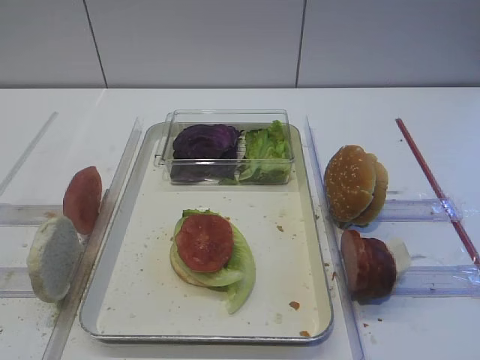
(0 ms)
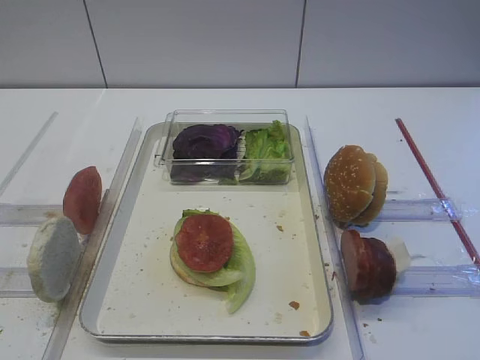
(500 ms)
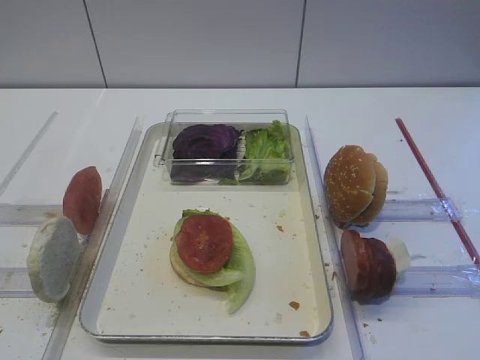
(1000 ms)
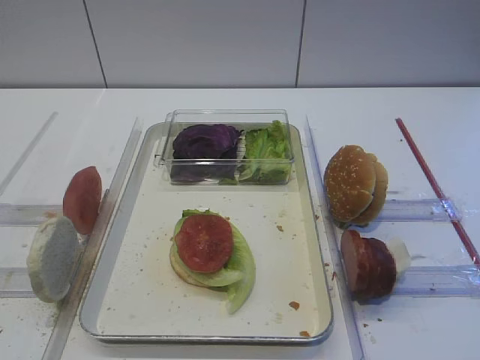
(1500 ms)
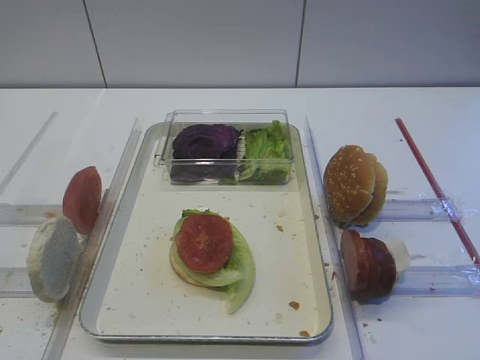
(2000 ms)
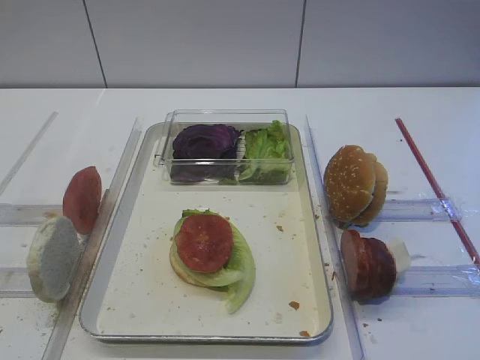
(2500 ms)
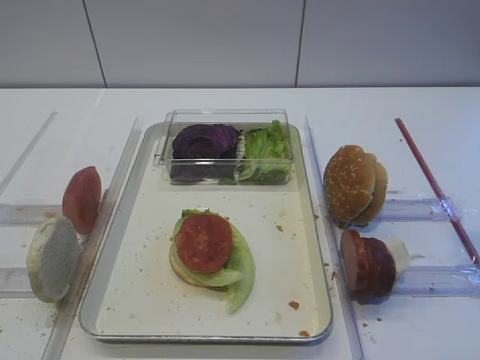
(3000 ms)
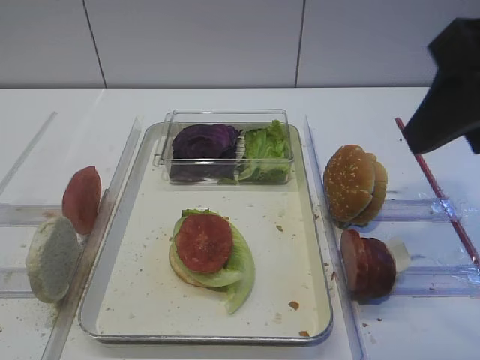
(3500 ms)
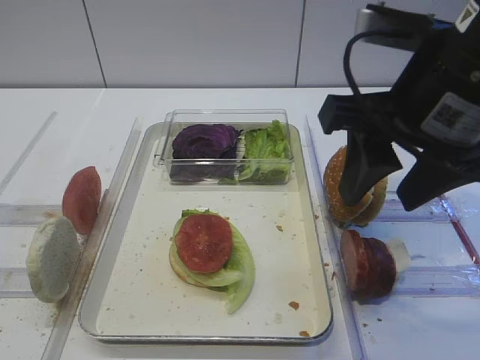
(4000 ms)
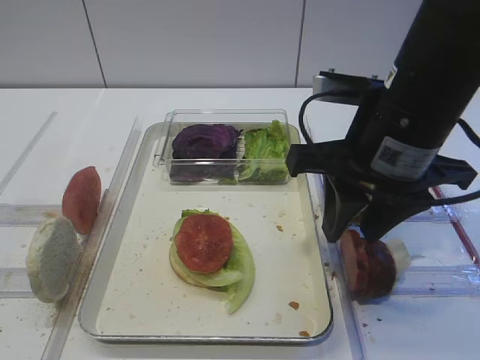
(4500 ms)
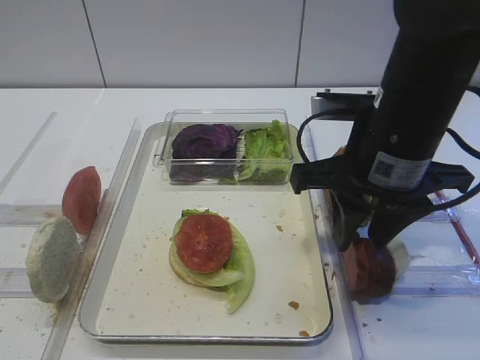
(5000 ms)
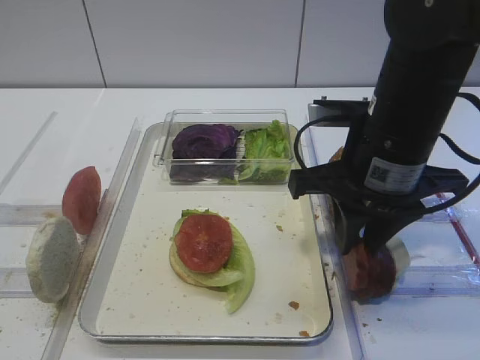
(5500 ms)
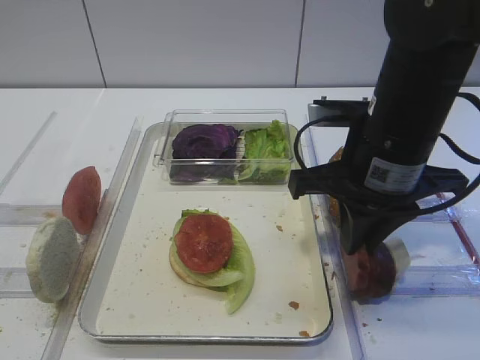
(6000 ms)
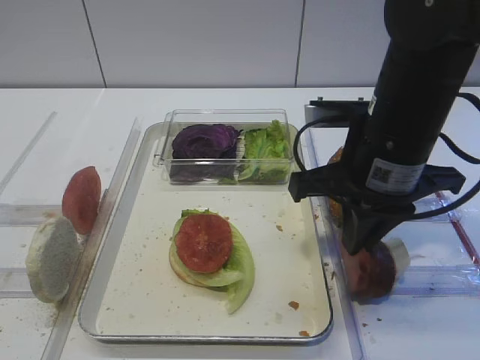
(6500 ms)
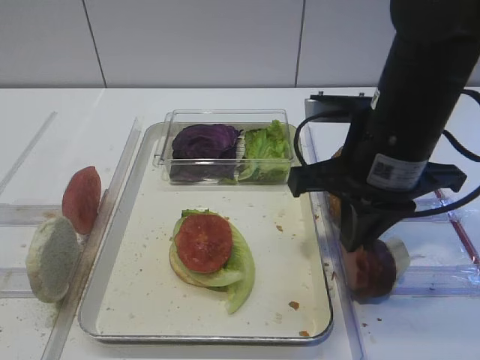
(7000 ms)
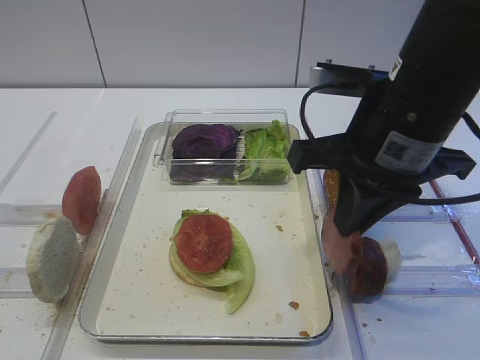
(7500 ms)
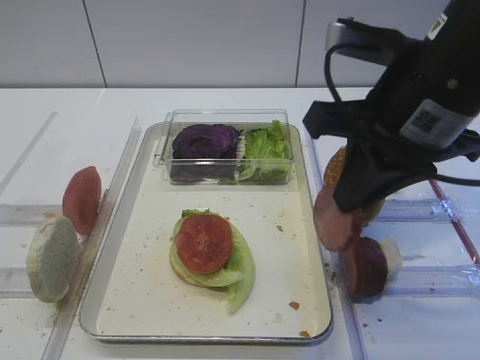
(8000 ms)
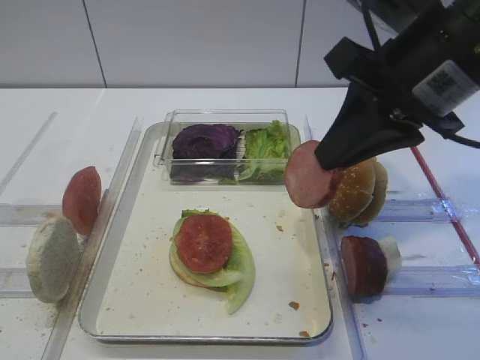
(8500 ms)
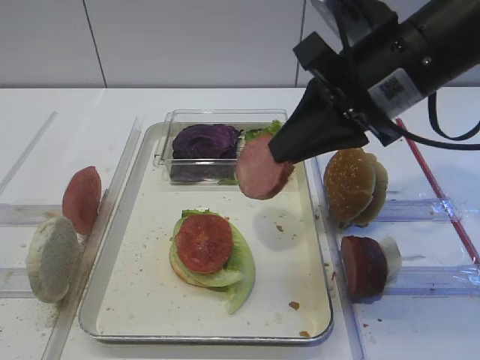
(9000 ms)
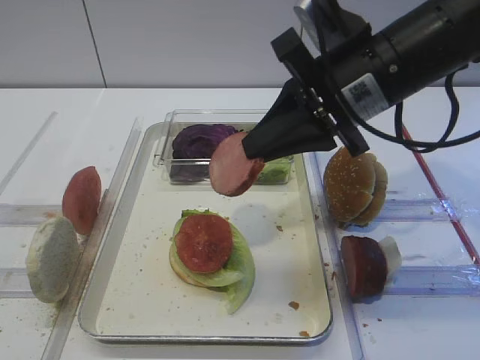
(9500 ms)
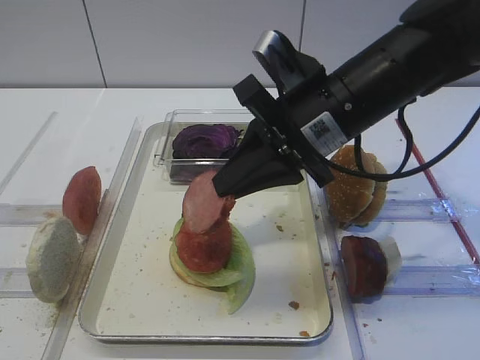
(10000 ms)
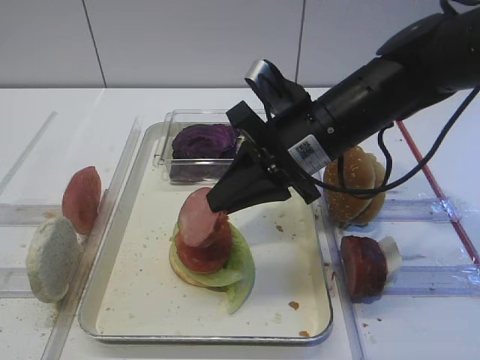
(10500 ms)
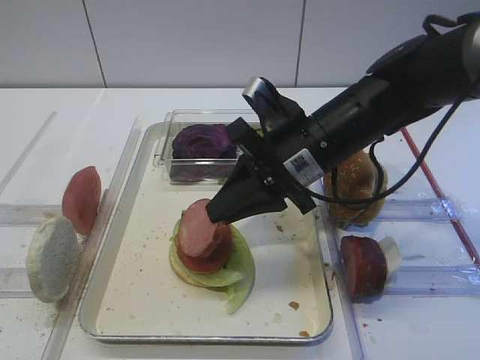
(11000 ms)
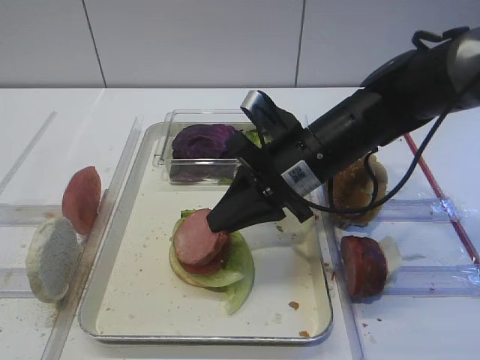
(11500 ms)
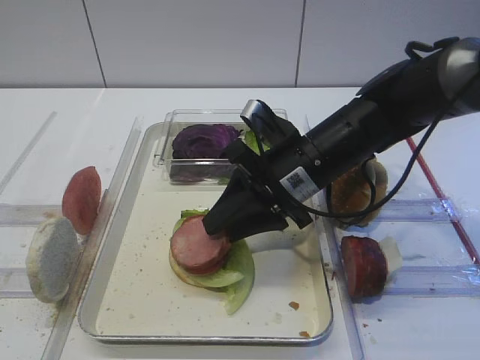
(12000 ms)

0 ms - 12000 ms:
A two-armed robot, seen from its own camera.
Step, 0 ms - 8000 ms: Pick up the cutlet with the right gripper.
2000 ms - 4000 ms: The right gripper moves forward and to the left, about 25 cm.
4000 ms - 6000 ms: The right gripper travels downward by some 10 cm, and closes.
6000 ms - 8000 ms: The right gripper heads upward, covering some 5 cm.
8000 ms - 10000 ms: The right gripper travels forward by some 5 cm.
10000 ms - 12000 ms: The right gripper travels downward by about 10 cm, and opens up.

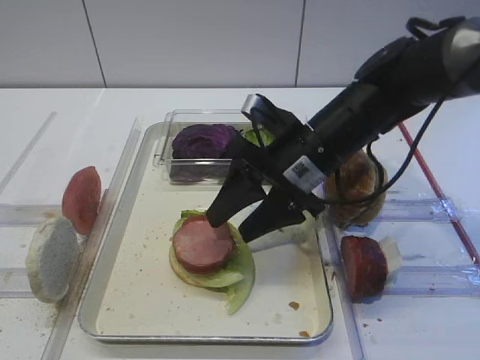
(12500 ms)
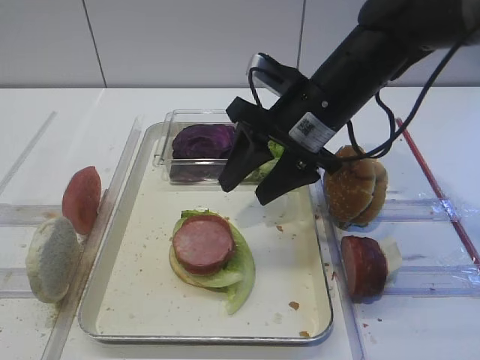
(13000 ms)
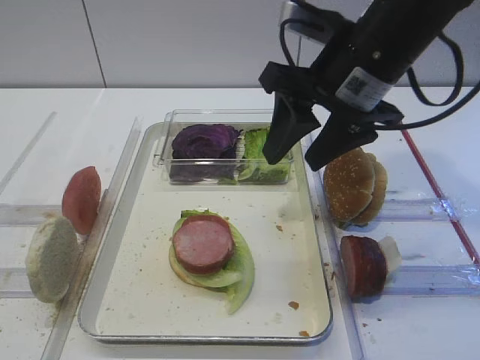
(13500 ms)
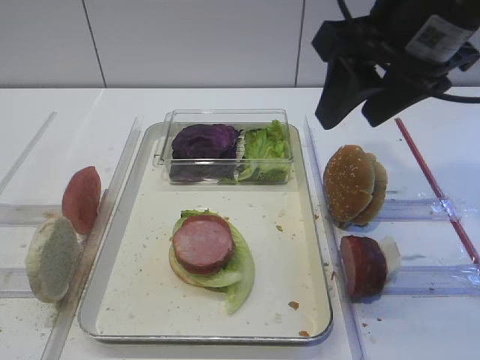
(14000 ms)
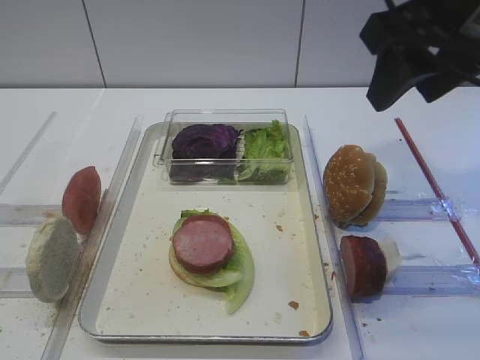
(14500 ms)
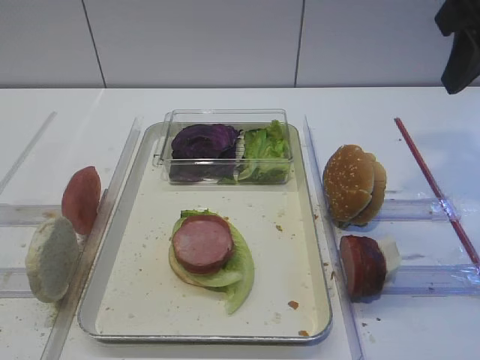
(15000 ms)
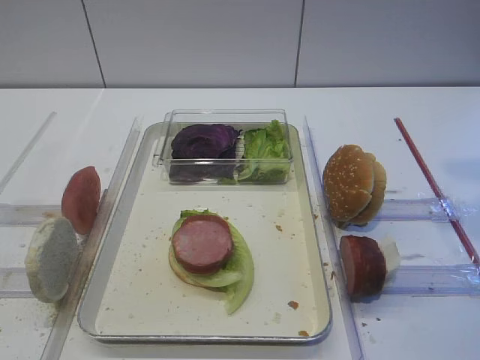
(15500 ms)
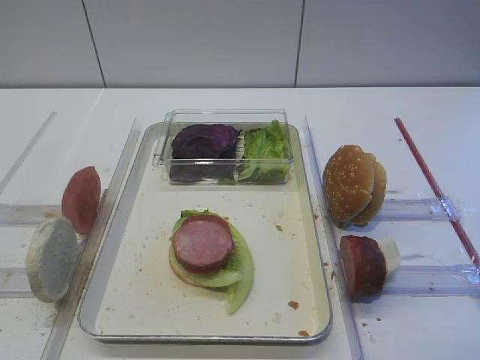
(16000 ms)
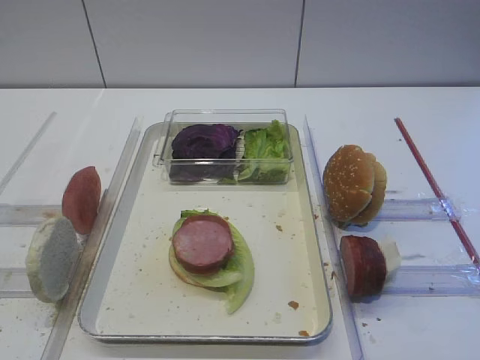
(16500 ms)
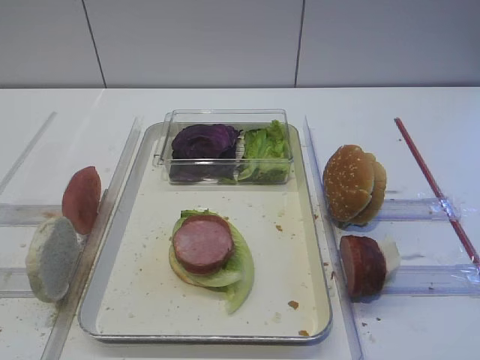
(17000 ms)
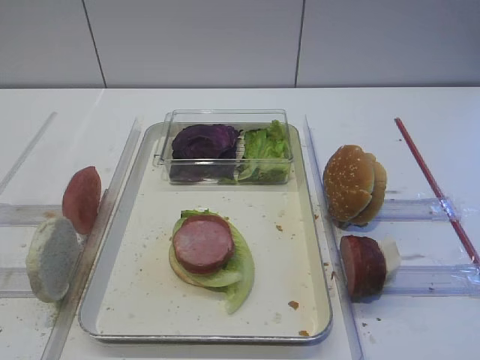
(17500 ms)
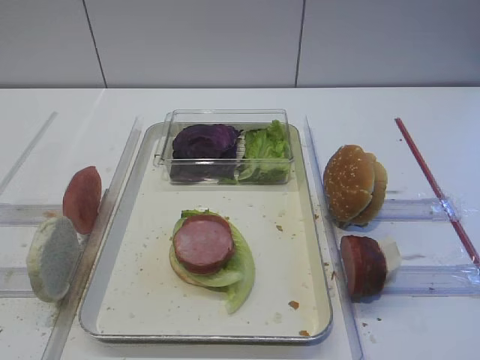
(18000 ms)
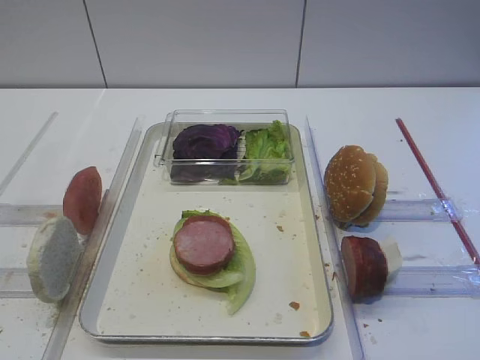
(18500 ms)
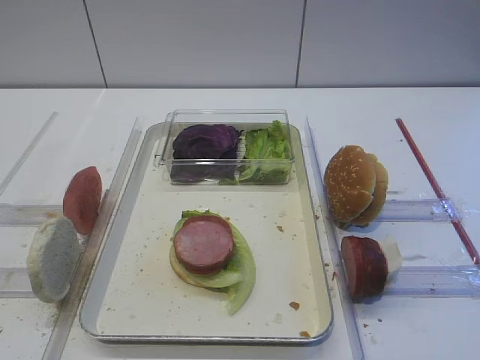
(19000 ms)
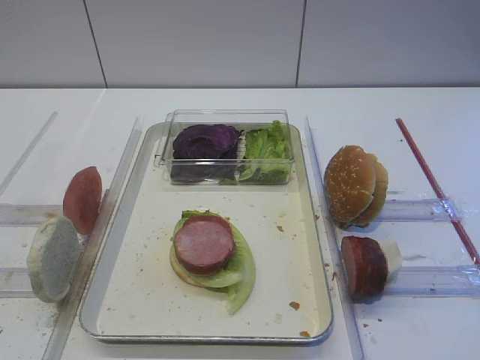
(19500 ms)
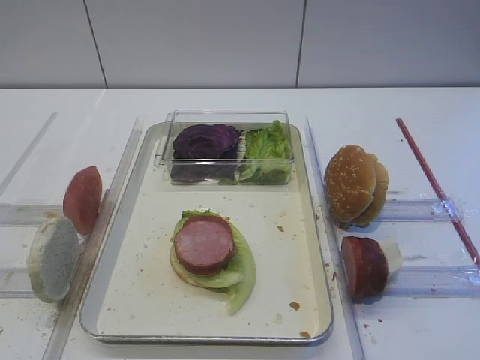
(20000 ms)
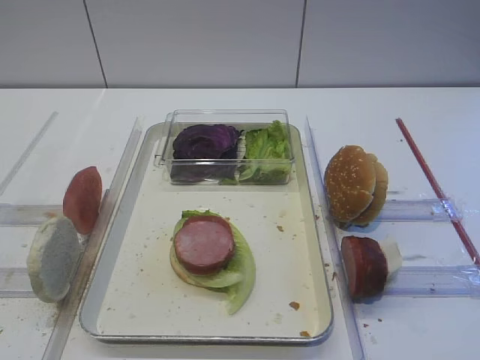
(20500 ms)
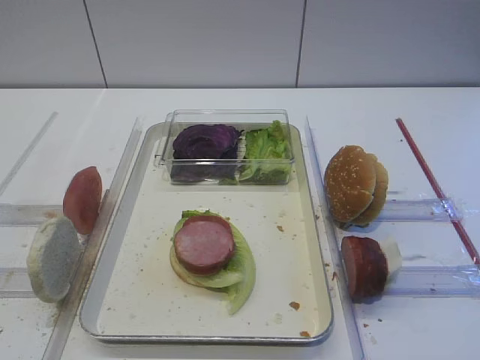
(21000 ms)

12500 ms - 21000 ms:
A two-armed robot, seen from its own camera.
12500 ms - 14500 ms: The right gripper travels upward and to the right by approximately 20 cm.
14500 ms - 16500 ms: The right gripper goes some 20 cm backward, downward and to the right.
19000 ms - 21000 ms: Both grippers stay about where they are.

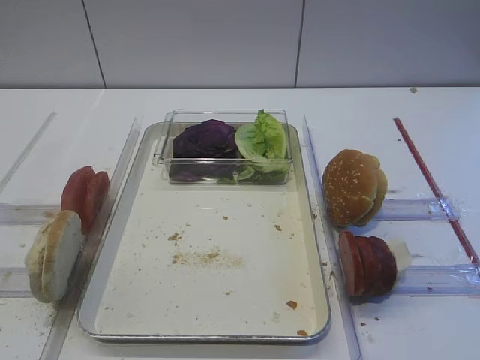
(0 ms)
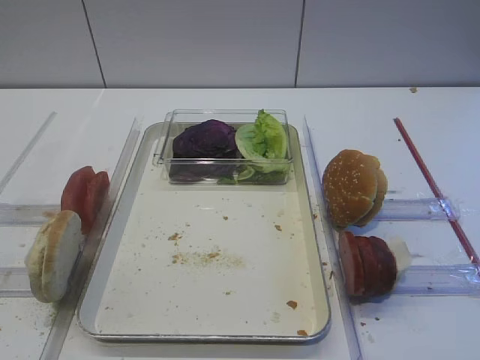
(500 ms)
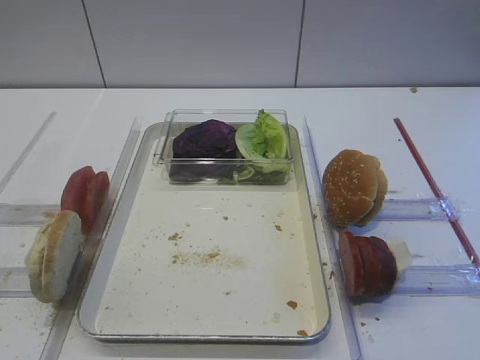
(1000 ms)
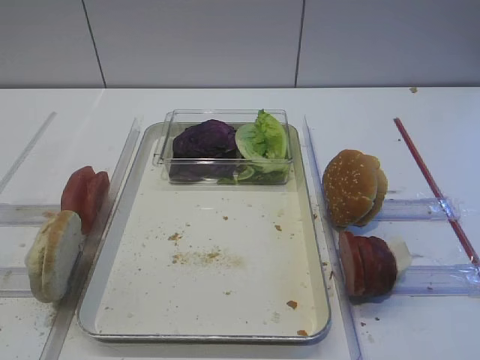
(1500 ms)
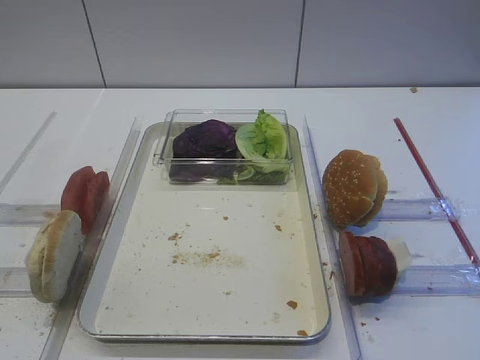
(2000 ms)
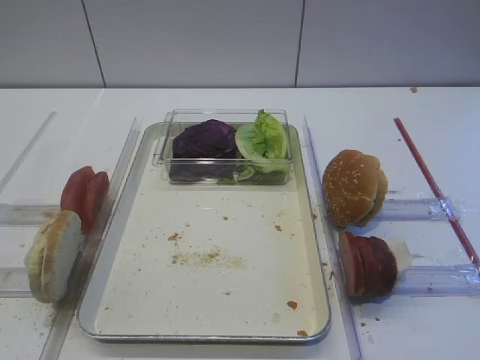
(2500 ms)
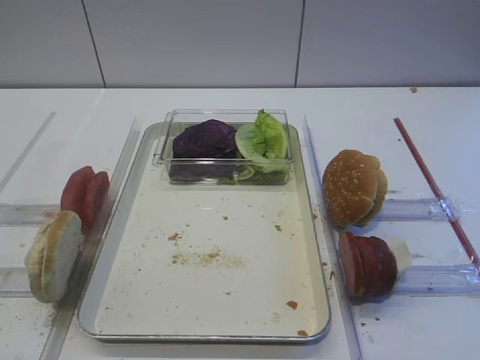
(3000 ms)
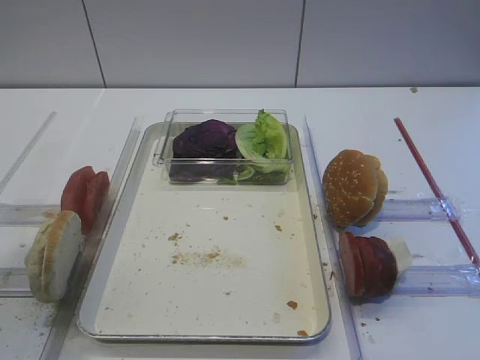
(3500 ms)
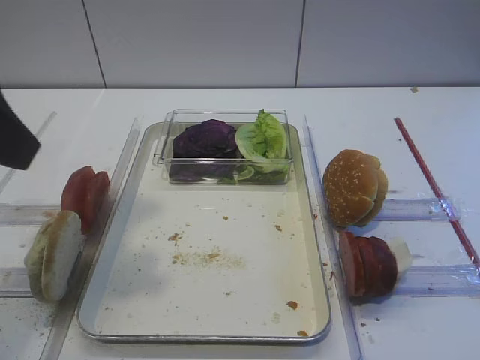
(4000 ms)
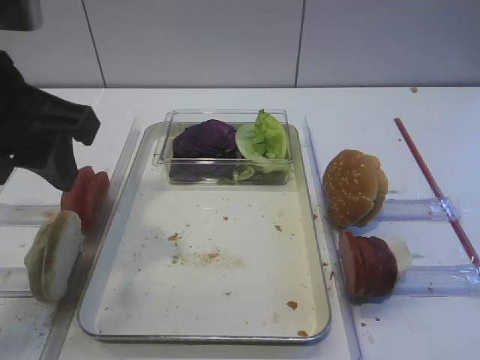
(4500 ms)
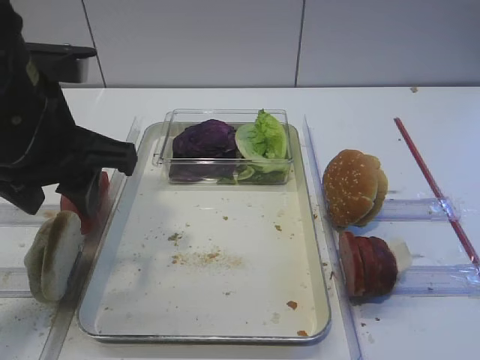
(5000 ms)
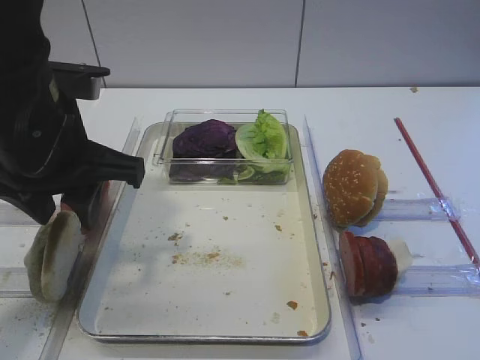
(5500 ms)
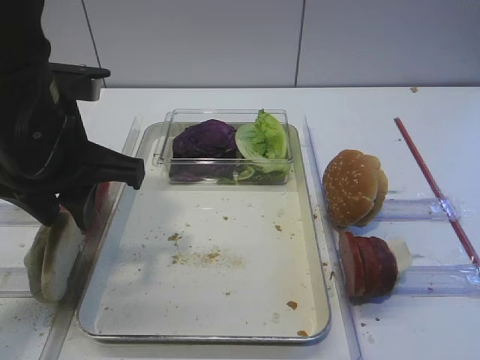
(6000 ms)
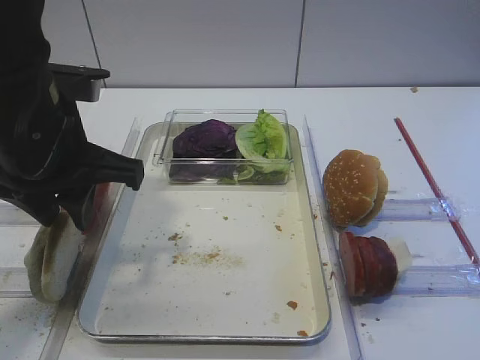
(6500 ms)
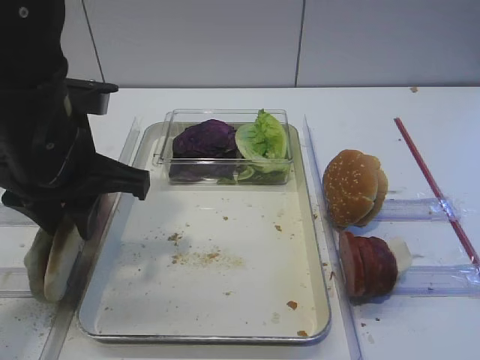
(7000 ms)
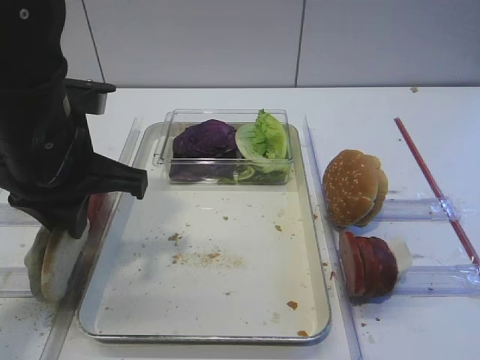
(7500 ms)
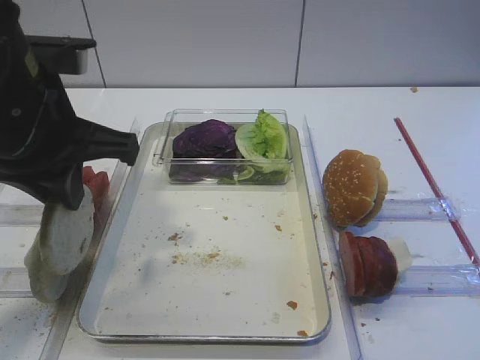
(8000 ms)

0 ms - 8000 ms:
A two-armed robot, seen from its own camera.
2000 ms - 4000 ms: The left gripper moves forward, upward and to the right, roughly 20 cm.
4000 ms - 6000 ms: The left gripper is displaced downward, forward and to the right by approximately 15 cm, and closes.
6000 ms - 8000 ms: The left gripper closes its fingers.
